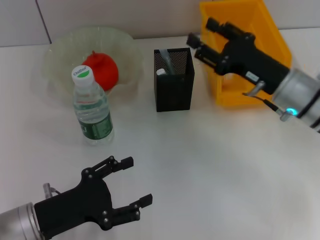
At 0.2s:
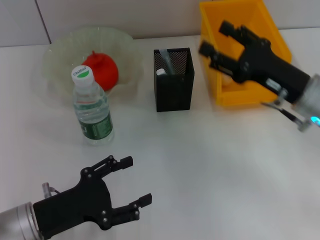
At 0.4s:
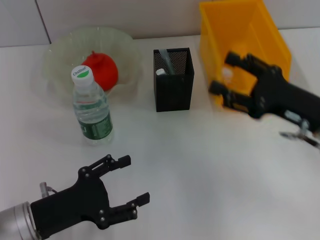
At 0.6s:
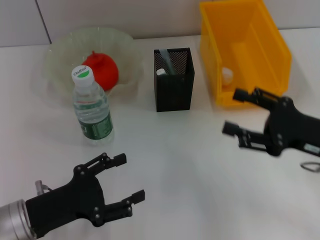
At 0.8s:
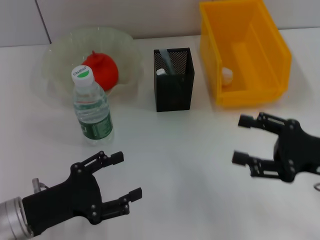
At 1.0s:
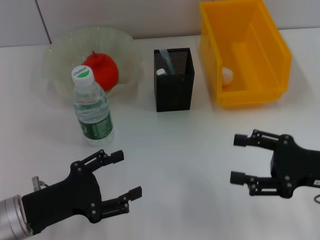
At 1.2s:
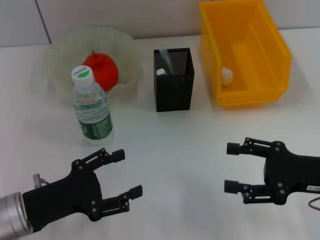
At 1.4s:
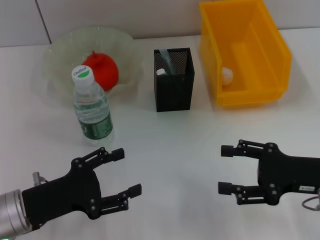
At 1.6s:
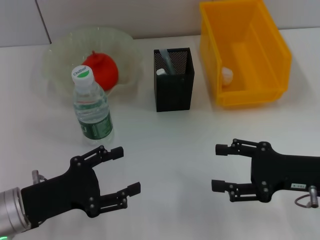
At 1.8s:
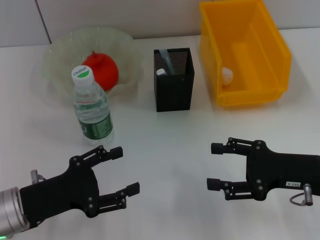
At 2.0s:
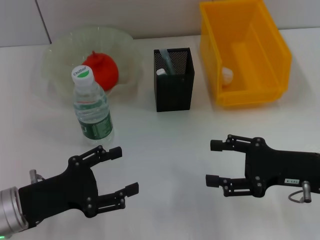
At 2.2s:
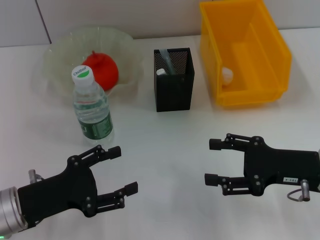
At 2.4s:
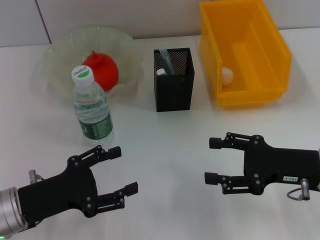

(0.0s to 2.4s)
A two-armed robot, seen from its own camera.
0.0s - 1.2s: The right gripper is displaced backward and to the right by some 15 cm, and opens up.
1.2s - 2.4s: The grippers move only a little.

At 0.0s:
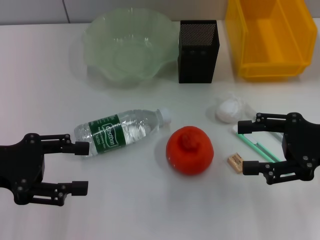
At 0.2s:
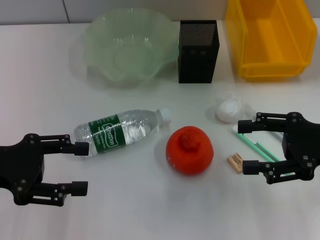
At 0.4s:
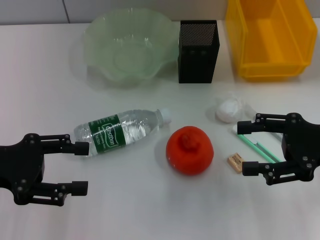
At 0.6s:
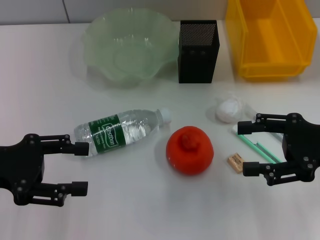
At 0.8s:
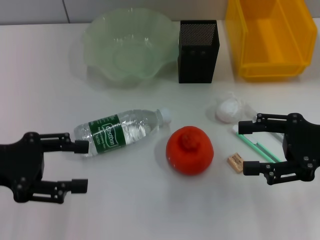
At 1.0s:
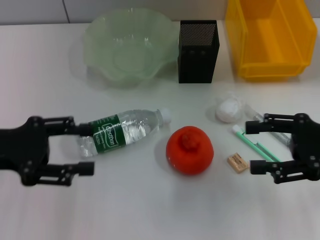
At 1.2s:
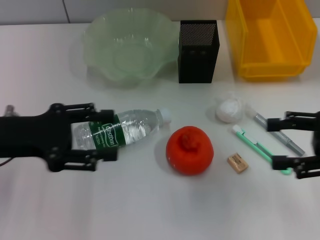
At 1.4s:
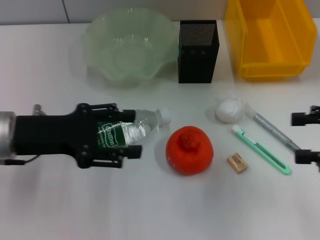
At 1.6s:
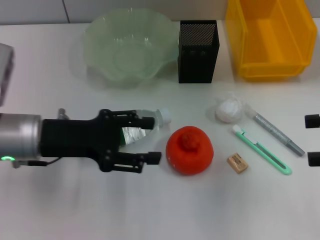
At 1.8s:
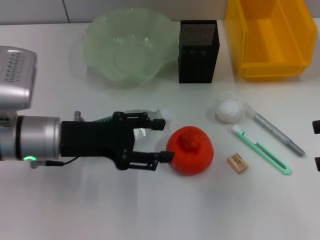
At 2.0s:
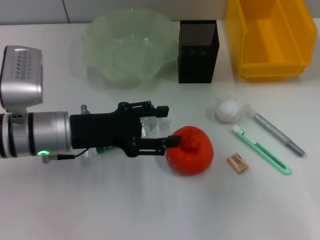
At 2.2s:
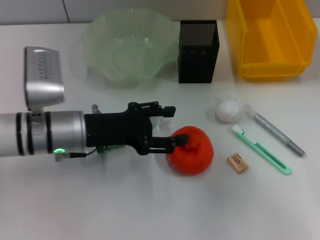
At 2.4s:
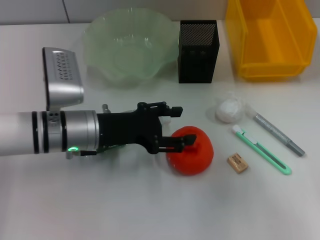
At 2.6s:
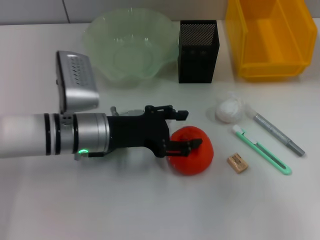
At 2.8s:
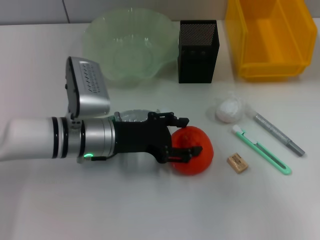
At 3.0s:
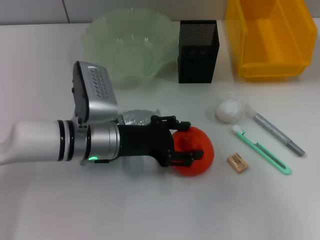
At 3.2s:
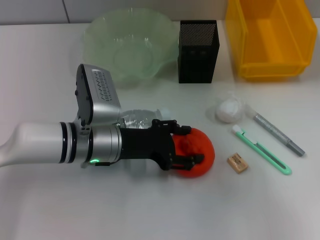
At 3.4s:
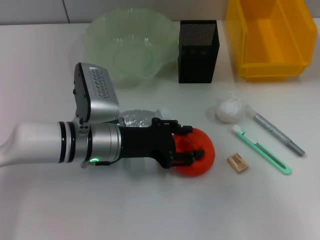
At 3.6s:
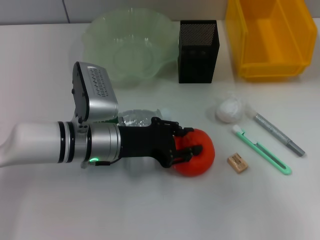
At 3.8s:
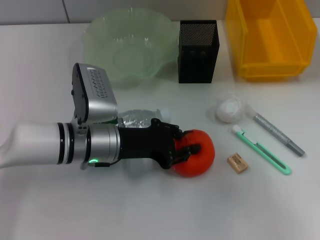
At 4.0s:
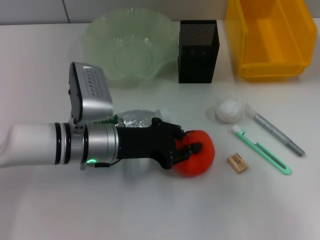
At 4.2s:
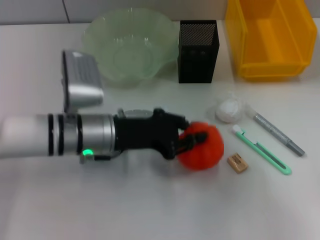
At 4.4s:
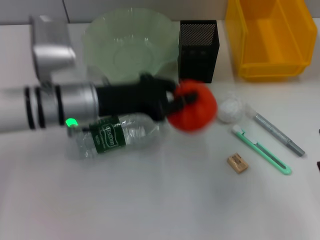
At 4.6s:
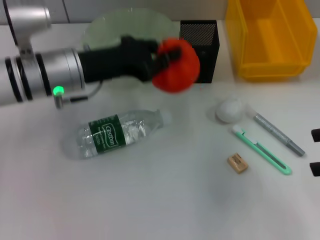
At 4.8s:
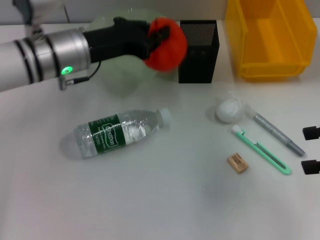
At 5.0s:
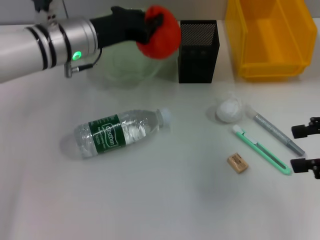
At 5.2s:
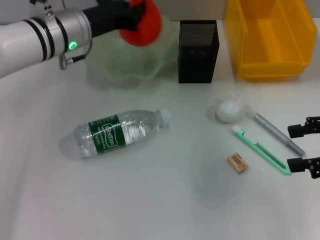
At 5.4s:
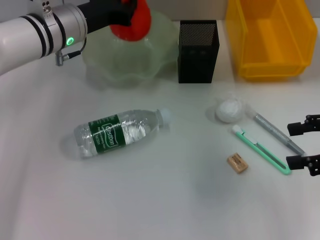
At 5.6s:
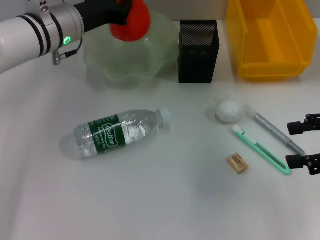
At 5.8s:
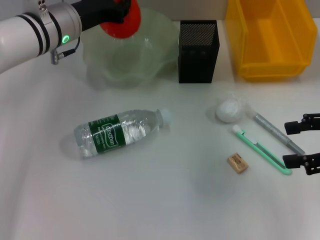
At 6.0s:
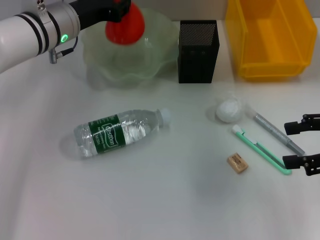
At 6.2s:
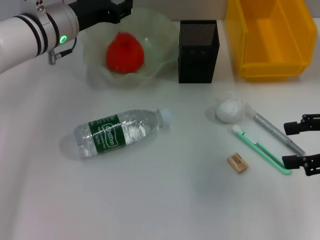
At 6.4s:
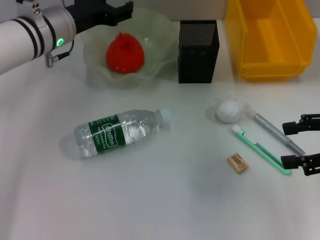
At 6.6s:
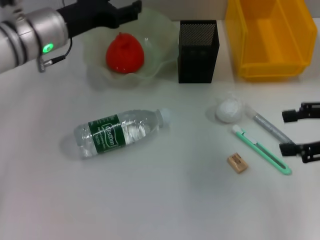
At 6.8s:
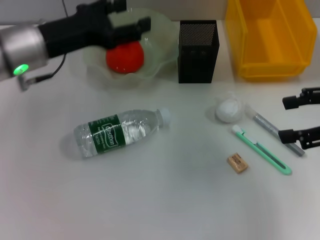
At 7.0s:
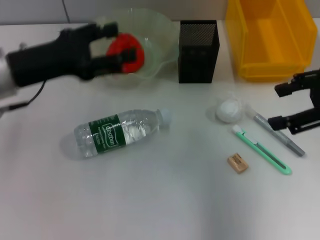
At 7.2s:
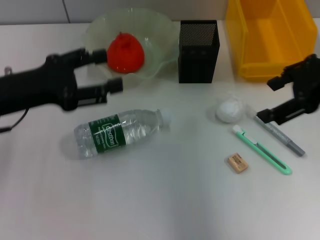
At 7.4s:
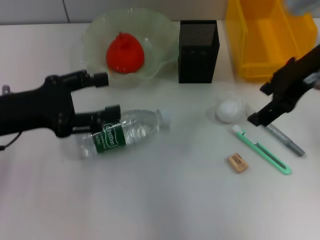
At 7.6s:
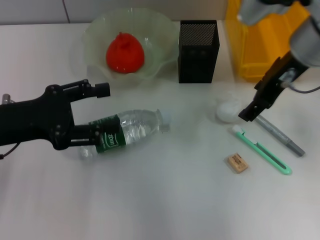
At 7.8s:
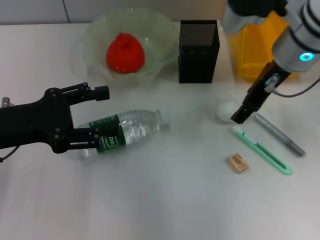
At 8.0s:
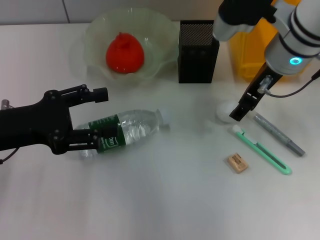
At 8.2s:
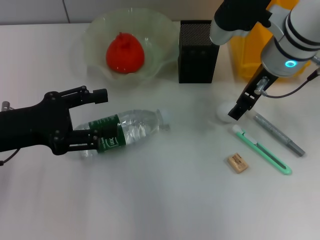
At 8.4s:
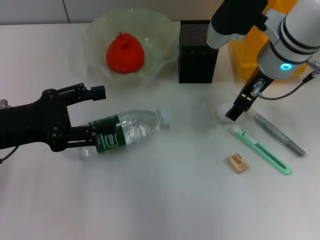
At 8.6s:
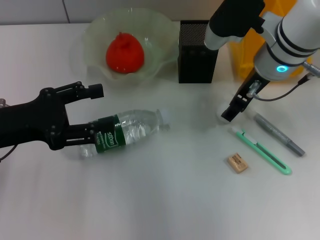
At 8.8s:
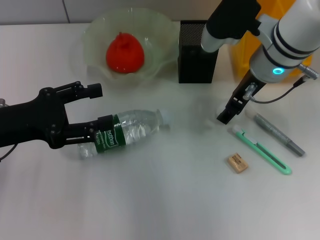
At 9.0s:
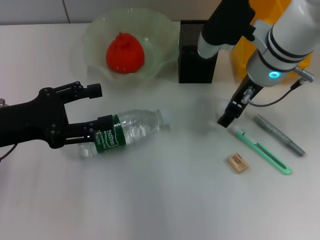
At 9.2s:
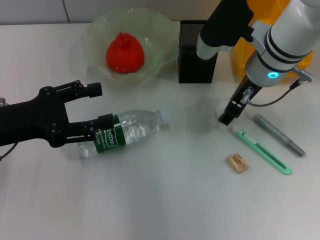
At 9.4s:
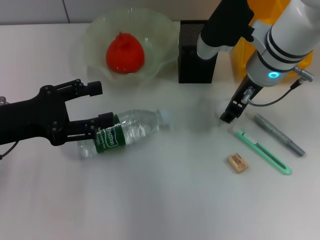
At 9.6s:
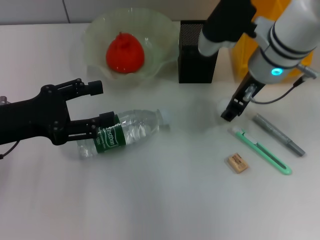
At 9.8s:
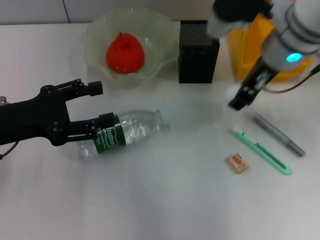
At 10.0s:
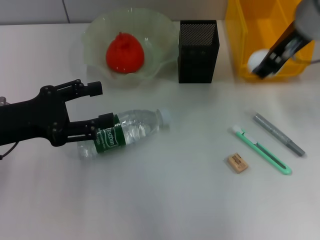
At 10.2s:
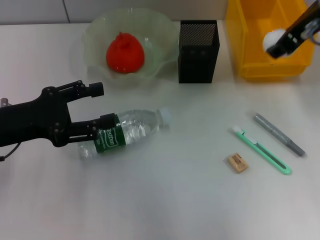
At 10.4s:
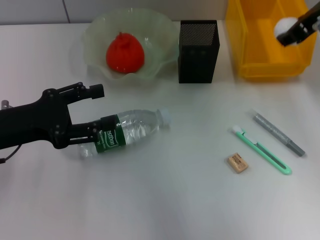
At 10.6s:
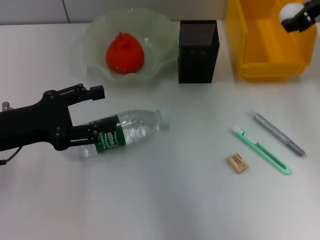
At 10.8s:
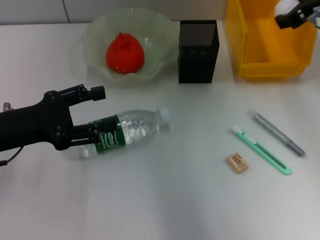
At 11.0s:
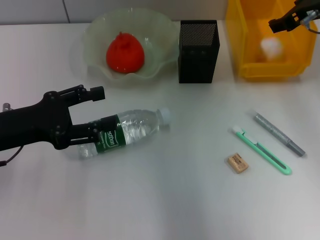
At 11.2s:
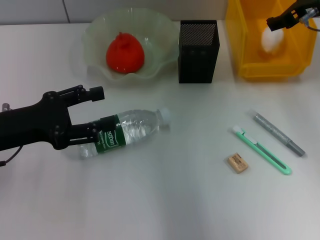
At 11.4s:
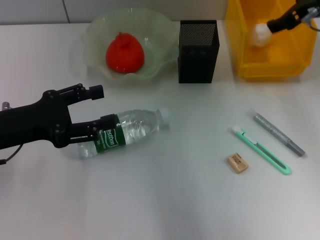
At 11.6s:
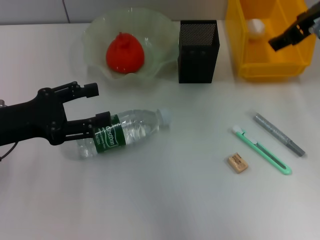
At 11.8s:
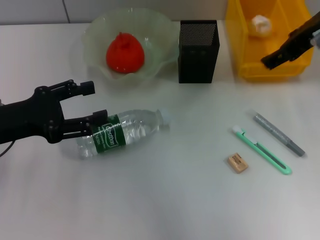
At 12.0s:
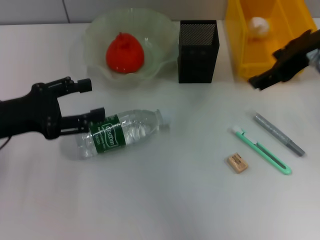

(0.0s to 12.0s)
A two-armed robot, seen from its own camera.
Step, 0.0s - 3.8s: Grab the orange with the left hand.
Step, 4.0s - 6.2s: Place the orange into the fruit bowl with the left hand.
Step, 6.4s - 9.2s: Grab the paper ball with the right hand.
0.0s - 1.6s: Both grippers travel together to the right, approximately 5 cm.
1.6s - 3.0s: The left gripper moves to the right and downward, some 10 cm.
3.0s - 4.4s: The left gripper heads upward, covering some 5 cm, and closes up.
4.4s - 6.0s: The left gripper is displaced forward by roughly 10 cm.
6.0s - 7.6s: The left gripper shifts approximately 20 cm backward and to the left, and opens its fingers. The right gripper heads to the left and forward, covering approximately 20 cm.
7.6s - 9.0s: The right gripper heads downward, covering some 5 cm.
9.0s - 10.4s: The right gripper is displaced upward and to the right by about 15 cm, and closes up.
10.4s - 12.0s: The right gripper opens up.

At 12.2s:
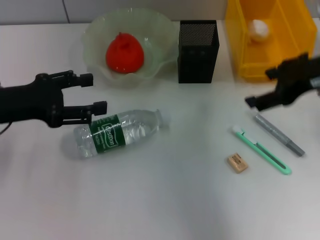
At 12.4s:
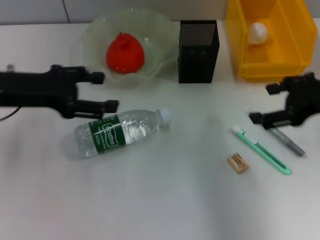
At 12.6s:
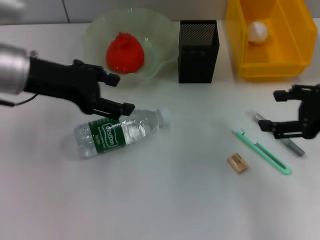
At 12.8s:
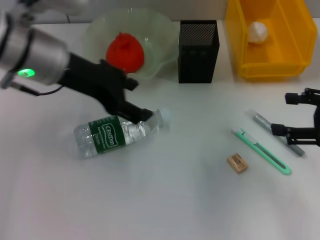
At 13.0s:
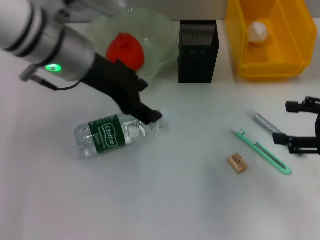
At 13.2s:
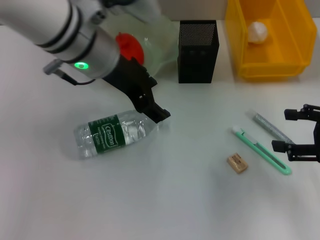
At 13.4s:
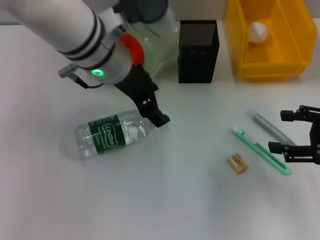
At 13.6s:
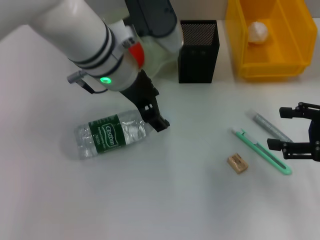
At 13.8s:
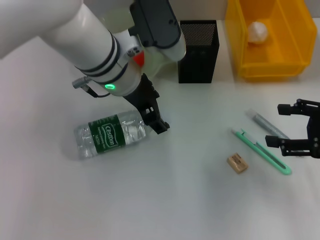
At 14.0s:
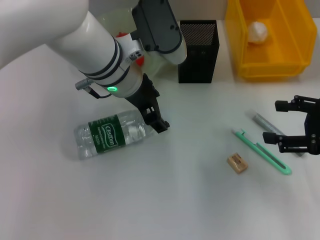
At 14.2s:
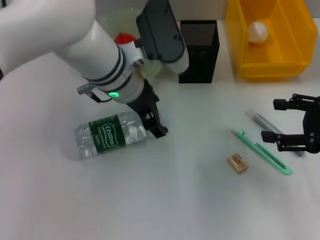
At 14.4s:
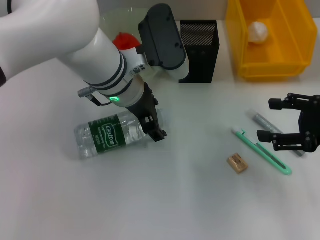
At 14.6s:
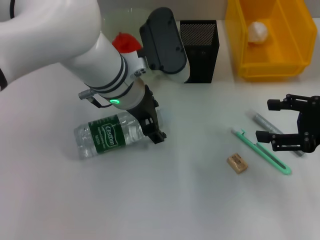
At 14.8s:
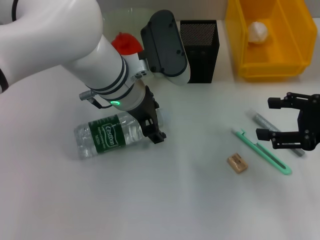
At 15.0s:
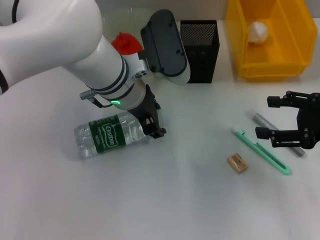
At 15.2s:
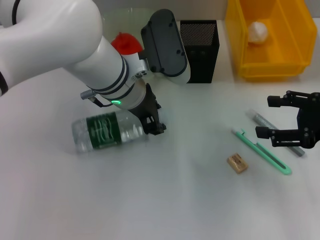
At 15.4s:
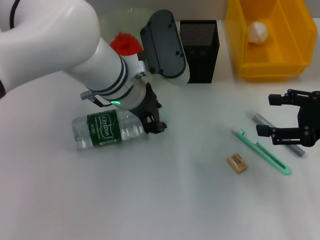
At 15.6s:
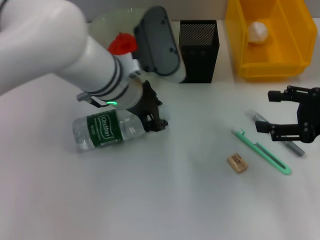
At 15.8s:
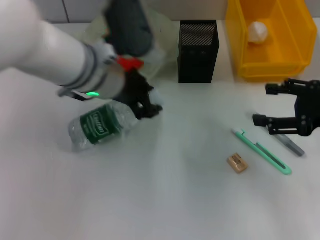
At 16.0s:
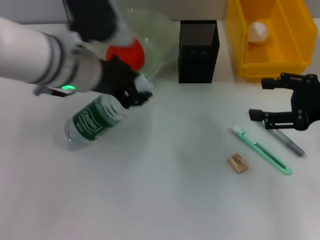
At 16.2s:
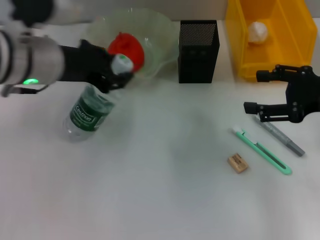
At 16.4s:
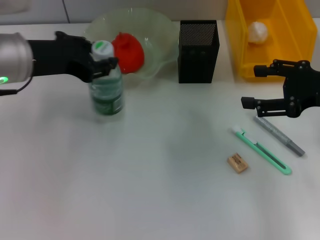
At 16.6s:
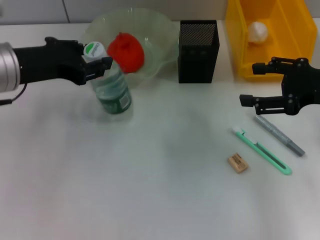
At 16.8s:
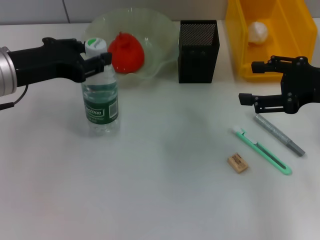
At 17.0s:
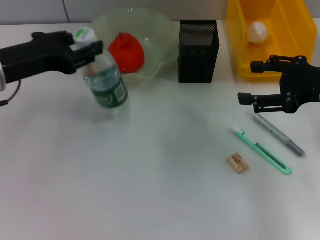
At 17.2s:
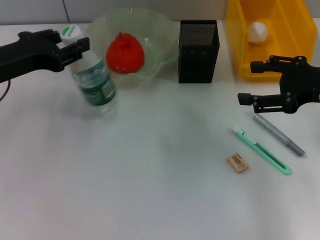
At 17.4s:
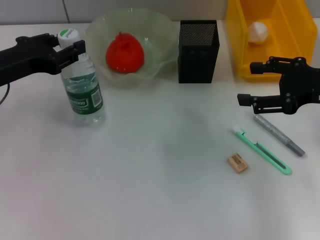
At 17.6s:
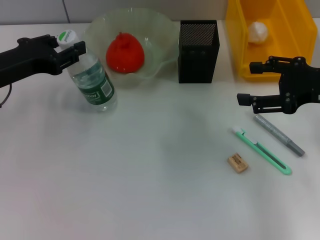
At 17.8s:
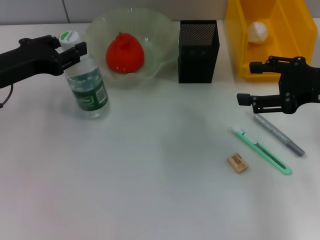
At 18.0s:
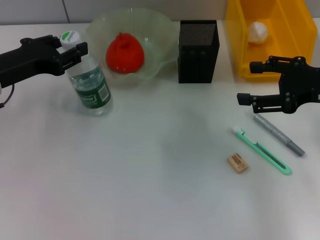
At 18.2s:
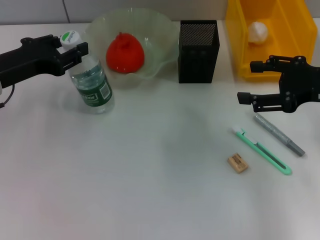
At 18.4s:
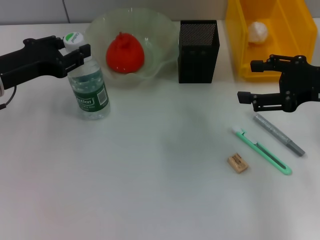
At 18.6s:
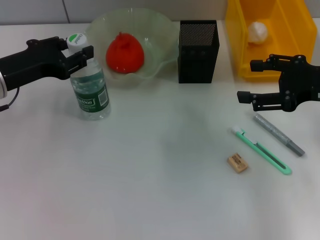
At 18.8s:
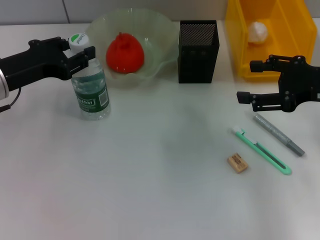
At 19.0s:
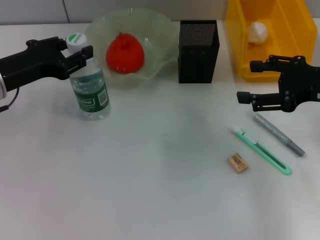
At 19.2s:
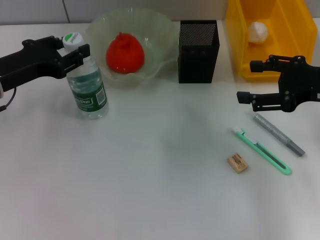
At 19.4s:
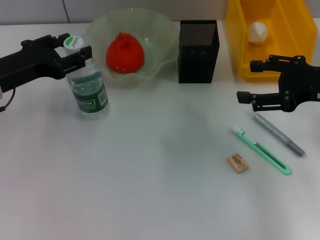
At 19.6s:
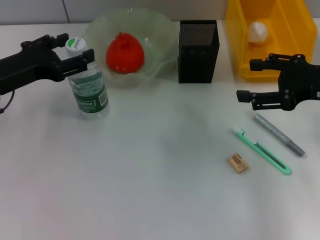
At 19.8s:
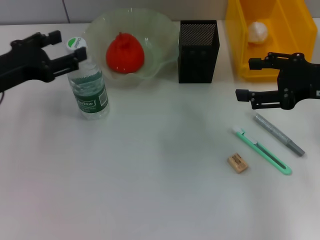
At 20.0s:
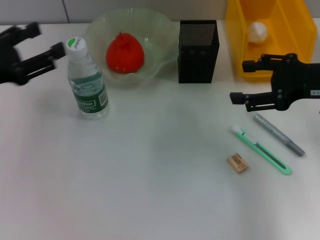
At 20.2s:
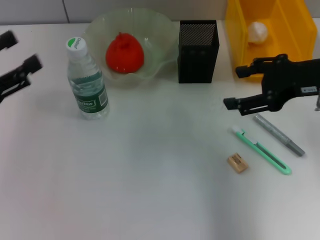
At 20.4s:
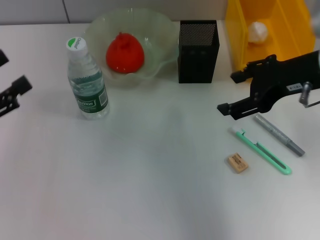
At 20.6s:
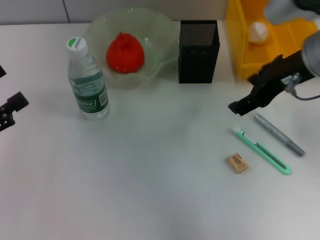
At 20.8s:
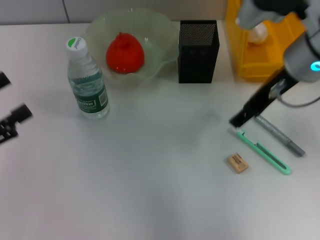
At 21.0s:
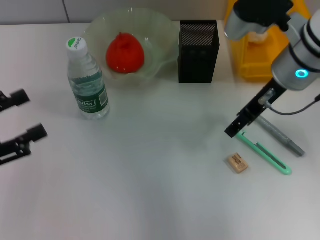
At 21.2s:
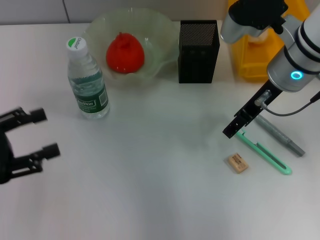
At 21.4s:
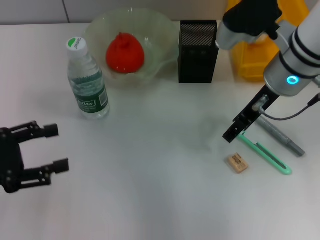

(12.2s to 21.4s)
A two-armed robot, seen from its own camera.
Step, 12.6s - 15.2s: Grab the water bottle with the left hand.
Step, 15.4s - 19.4s: Place the water bottle on the table with the left hand.
12.2s - 13.8s: The left gripper shifts about 20 cm to the right, while the right gripper is displaced downward, to the right and backward by some 15 cm.
13.8s - 15.2s: The grippers stay close to where they were, moving slightly.
15.2s - 16.8s: The left gripper shifts about 15 cm to the left, while the right gripper changes place by approximately 5 cm.
16.8s - 18.4s: The left gripper ends up about 5 cm from where it was.
18.4s - 19.8s: The left gripper opens up.
19.8s - 21.4s: The left gripper goes approximately 10 cm backward and to the left, while the right gripper heads to the left, covering some 15 cm.
